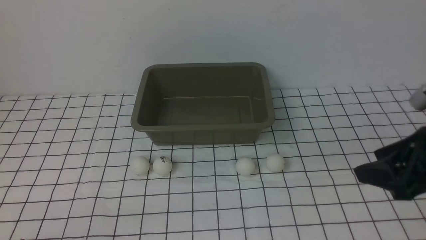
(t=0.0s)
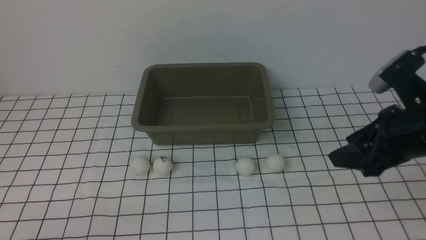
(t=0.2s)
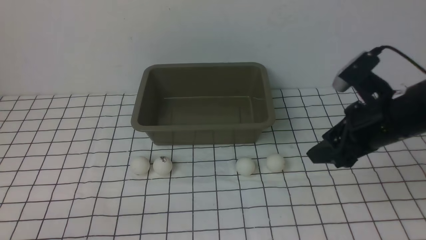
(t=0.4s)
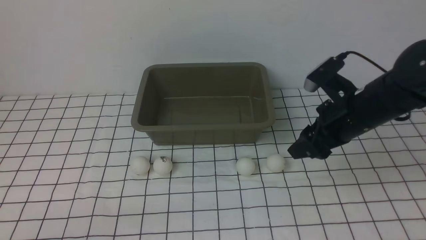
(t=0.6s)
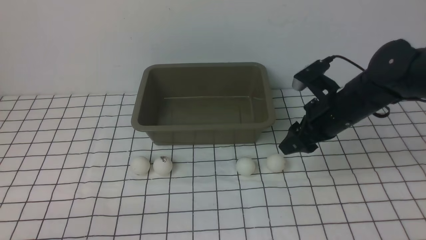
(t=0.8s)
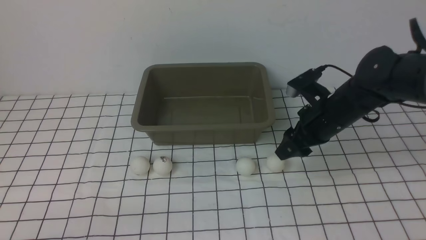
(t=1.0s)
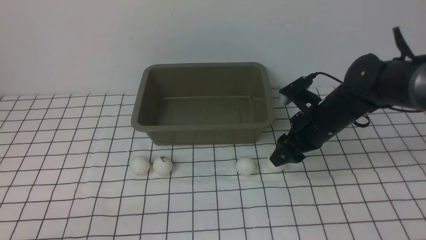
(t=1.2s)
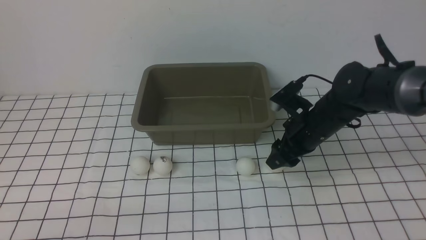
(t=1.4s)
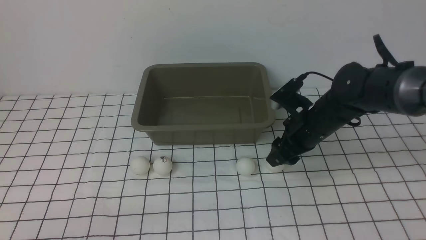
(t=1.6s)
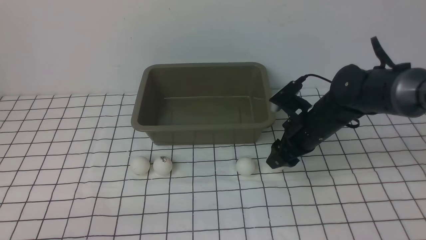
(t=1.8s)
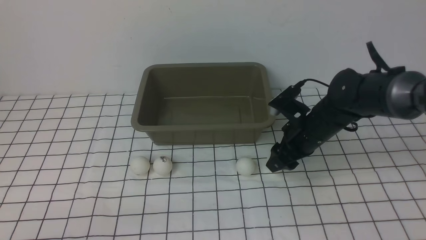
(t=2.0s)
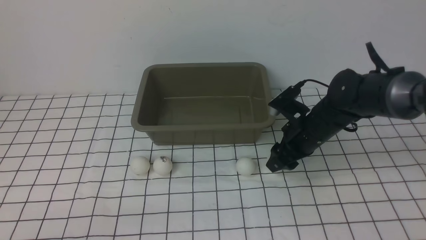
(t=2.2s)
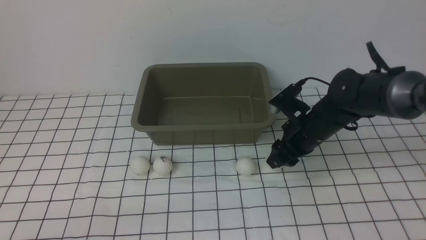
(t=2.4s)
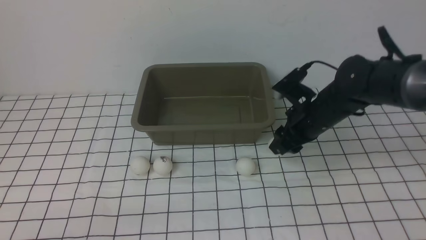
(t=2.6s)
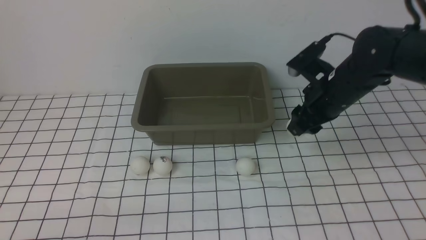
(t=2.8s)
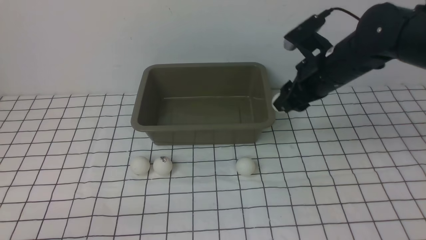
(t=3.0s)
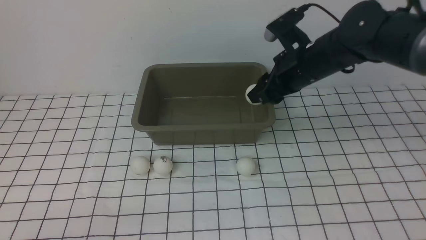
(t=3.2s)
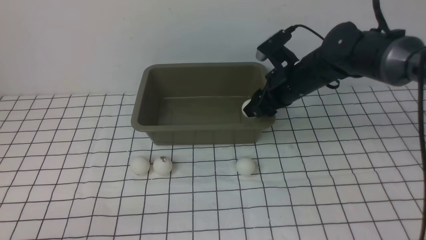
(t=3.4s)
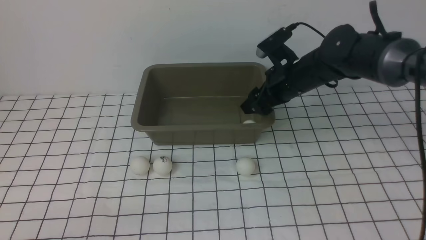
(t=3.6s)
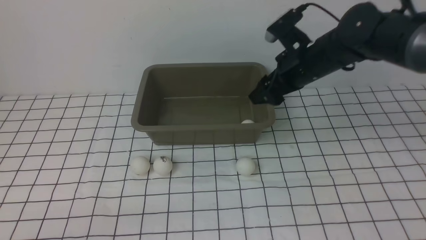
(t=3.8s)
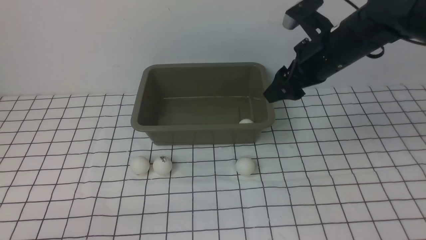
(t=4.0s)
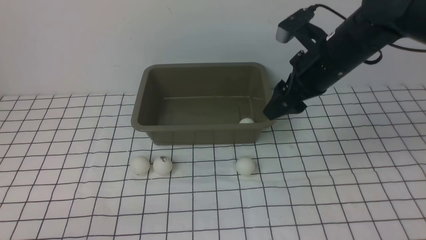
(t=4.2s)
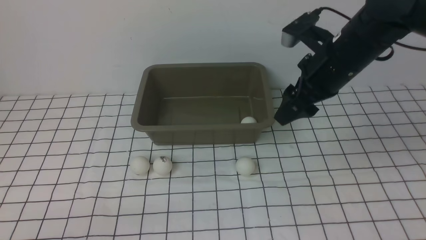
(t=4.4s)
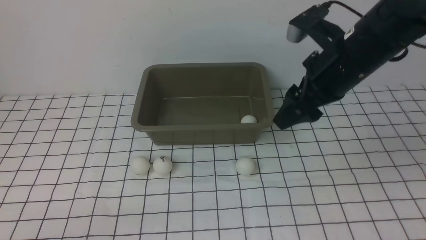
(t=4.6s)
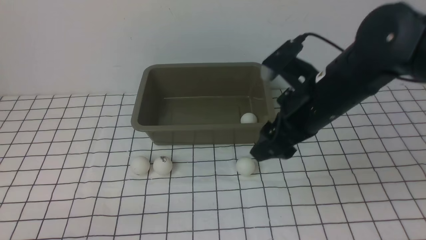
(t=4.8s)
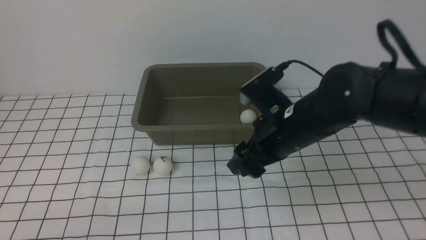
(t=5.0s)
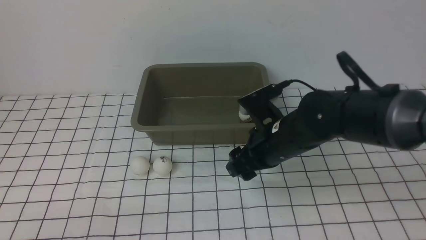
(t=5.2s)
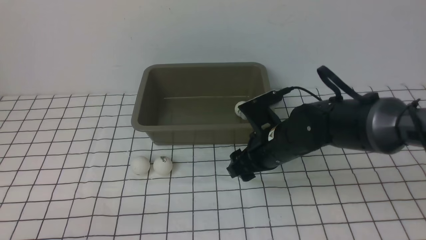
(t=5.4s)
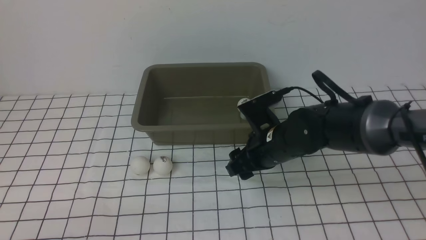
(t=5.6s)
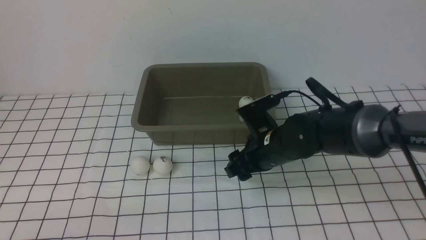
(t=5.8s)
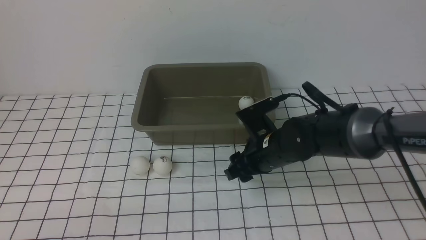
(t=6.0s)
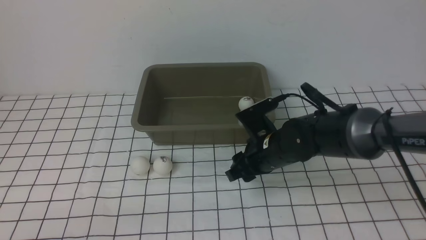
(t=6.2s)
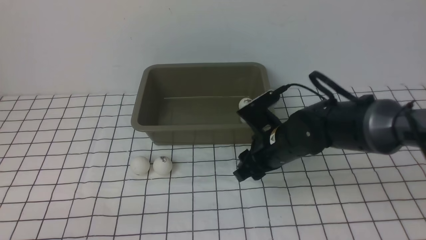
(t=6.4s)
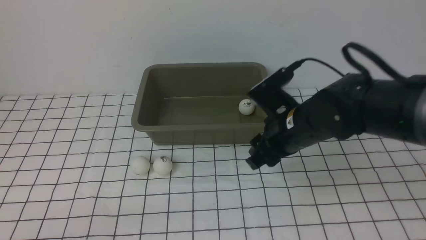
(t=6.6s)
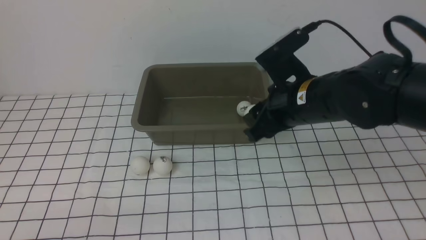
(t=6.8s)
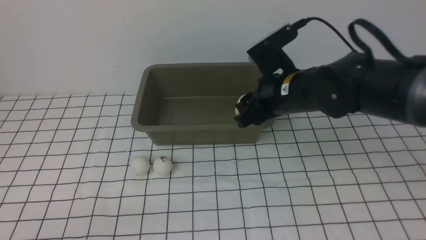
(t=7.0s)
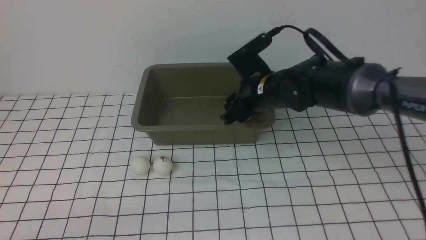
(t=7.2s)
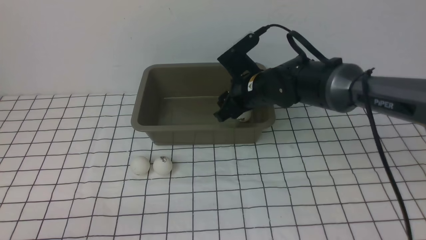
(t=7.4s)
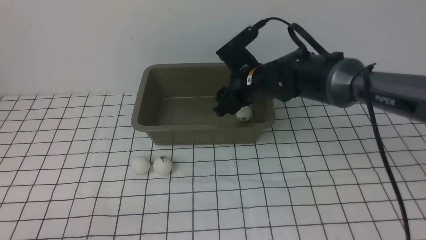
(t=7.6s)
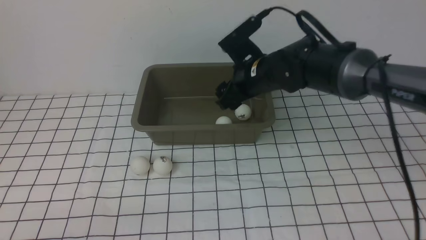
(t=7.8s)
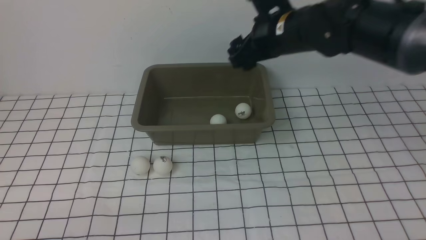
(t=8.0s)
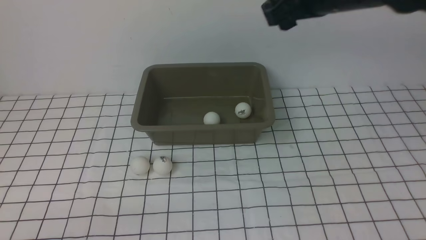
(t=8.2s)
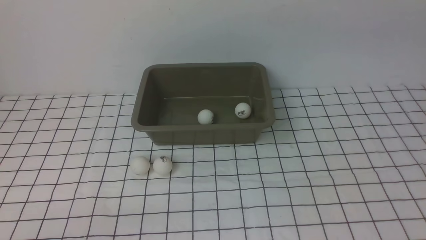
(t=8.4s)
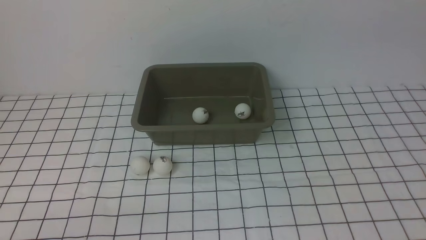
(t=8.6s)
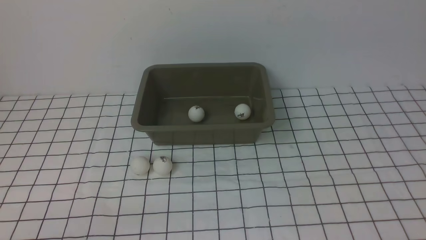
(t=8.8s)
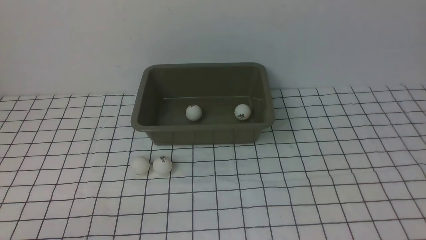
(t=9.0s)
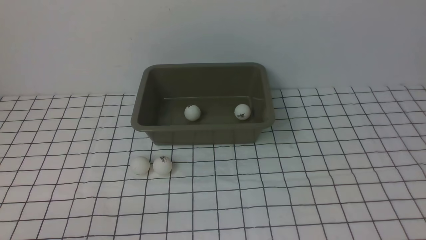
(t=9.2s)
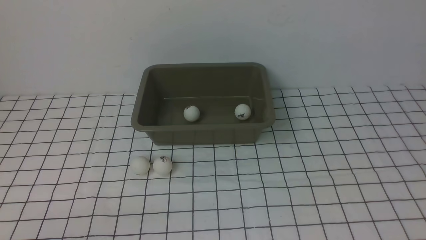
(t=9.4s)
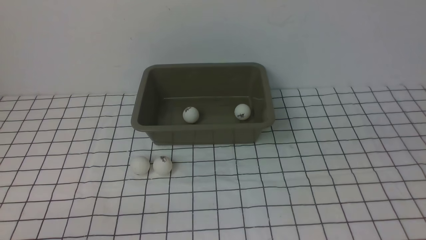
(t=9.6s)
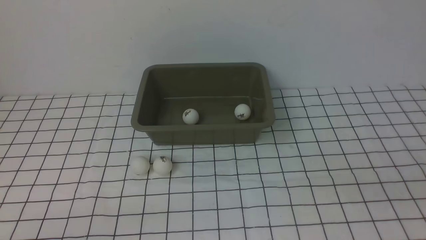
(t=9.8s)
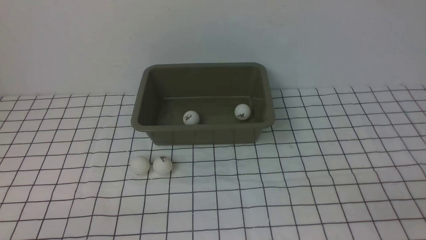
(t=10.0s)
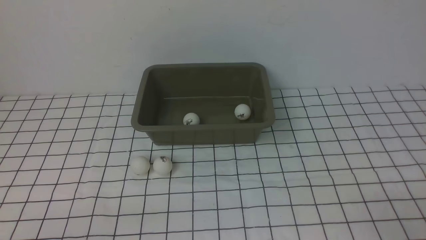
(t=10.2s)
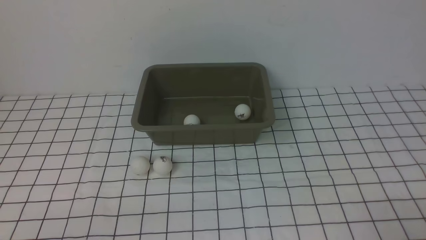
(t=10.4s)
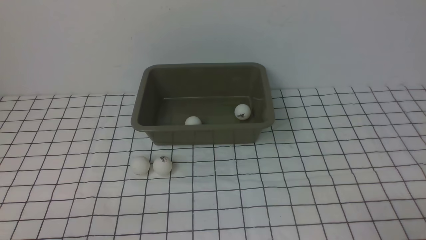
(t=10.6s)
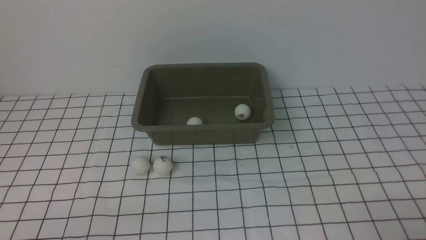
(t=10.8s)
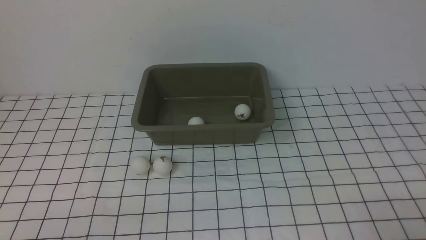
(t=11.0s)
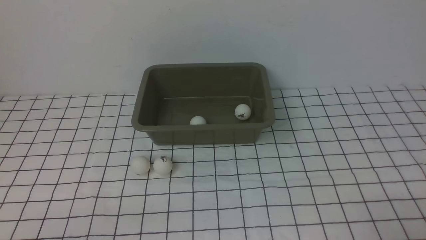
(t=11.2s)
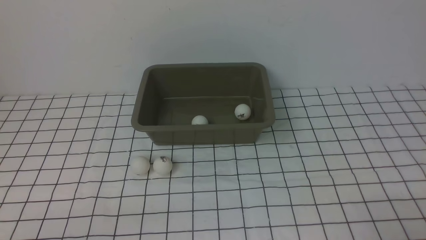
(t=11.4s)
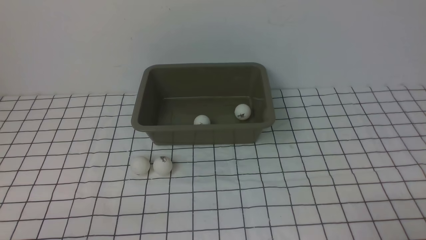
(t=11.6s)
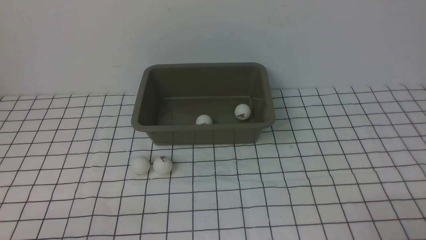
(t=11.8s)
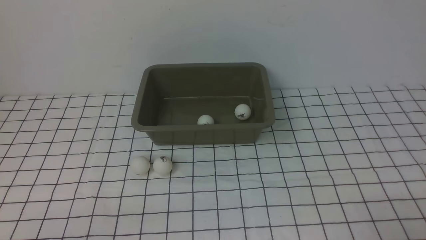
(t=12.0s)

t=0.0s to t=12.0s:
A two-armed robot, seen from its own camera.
Step, t=0.0s to t=2.6s: use the right arm to clamp the table tennis ball closest to it.
Step, t=3.0s to t=3.6s: use the right arm to put the table tennis ball into the box.
Step, t=3.8s to t=6.4s: use the right arm to clamp the table tennis ball closest to it.
Step, t=6.6s to t=7.8s: use the right arm to put the table tennis ball into the box.
t=0.0s to t=1.6s: The right gripper goes about 25 cm forward, downward and to the left.
t=1.6s to t=3.0s: The right gripper goes roughly 10 cm upward, and closes.
t=3.0s to t=4.4s: The right gripper shifts by approximately 5 cm, and opens up.
t=4.4s to t=6.0s: The right gripper shifts about 20 cm downward and to the left, and closes.
t=6.0s to t=7.6s: The right gripper is displaced forward and upward by roughly 10 cm.
t=7.6s to t=9.0s: The right gripper moves upward, backward and to the right, about 50 cm, and opens its fingers.

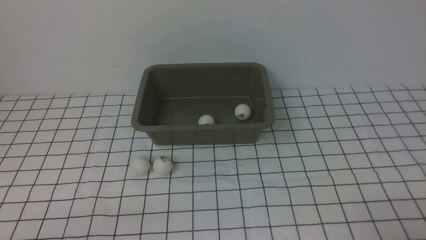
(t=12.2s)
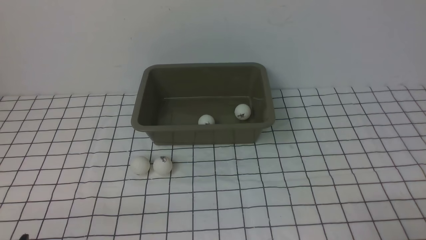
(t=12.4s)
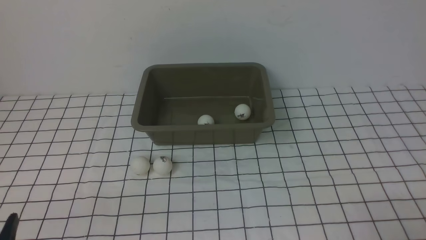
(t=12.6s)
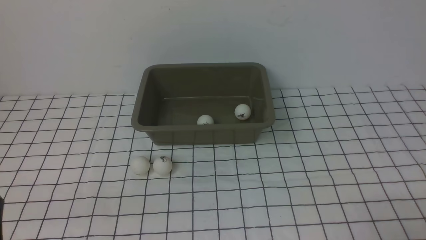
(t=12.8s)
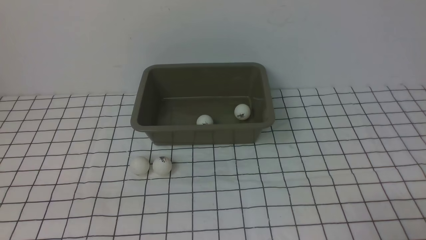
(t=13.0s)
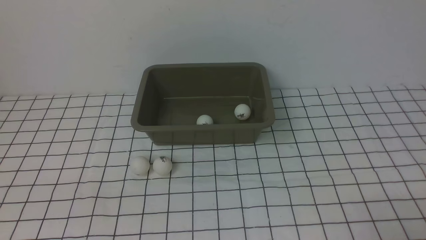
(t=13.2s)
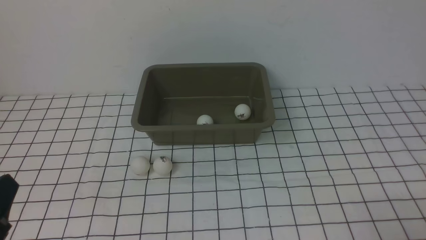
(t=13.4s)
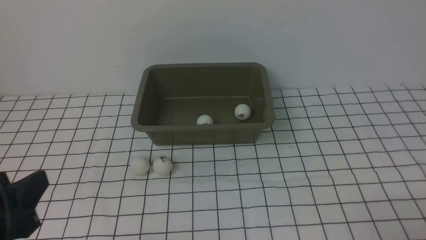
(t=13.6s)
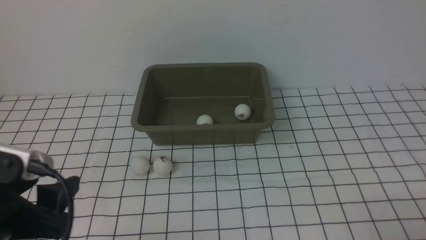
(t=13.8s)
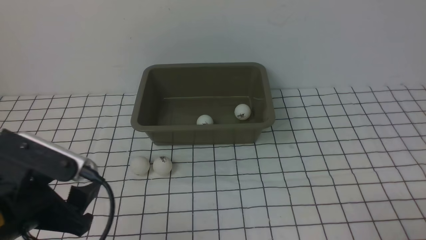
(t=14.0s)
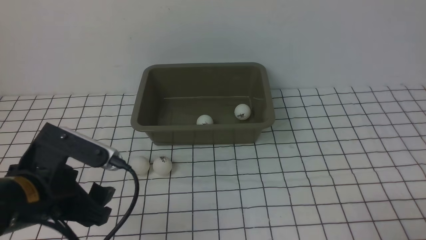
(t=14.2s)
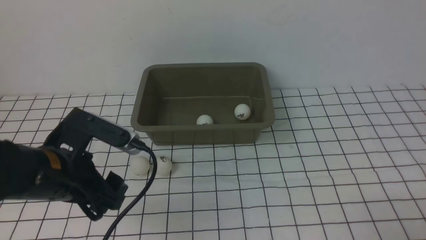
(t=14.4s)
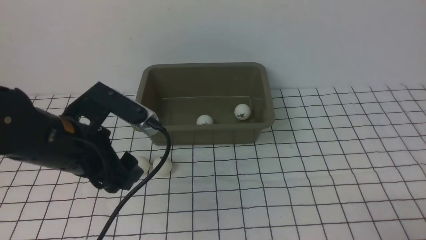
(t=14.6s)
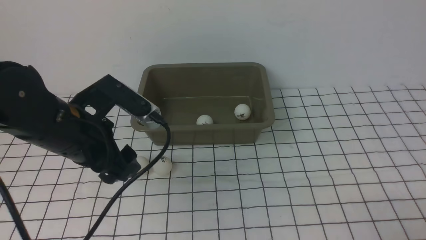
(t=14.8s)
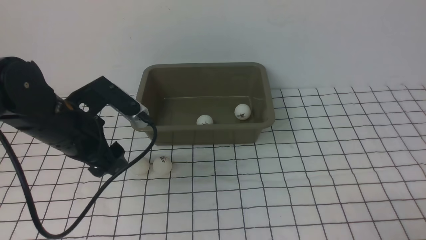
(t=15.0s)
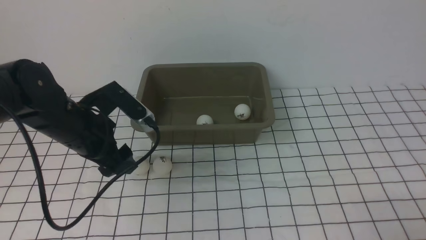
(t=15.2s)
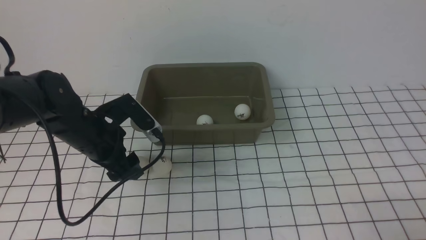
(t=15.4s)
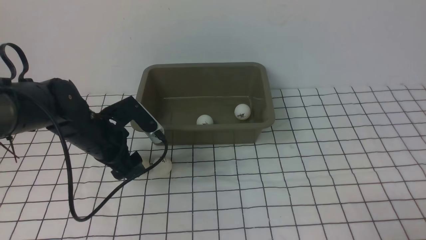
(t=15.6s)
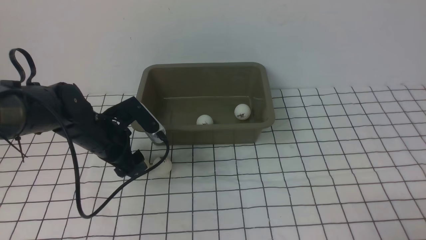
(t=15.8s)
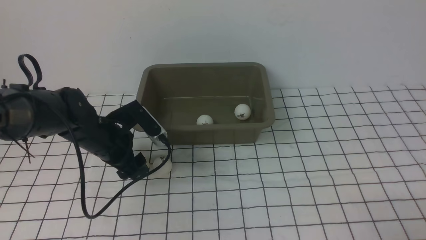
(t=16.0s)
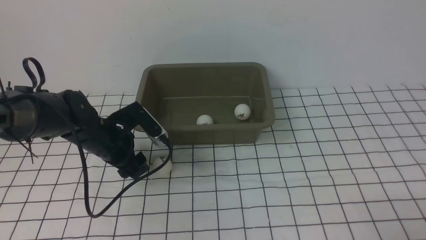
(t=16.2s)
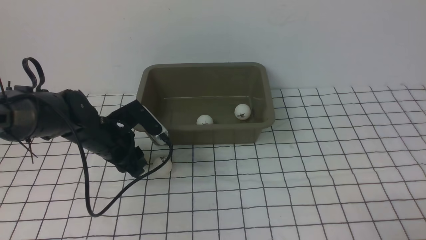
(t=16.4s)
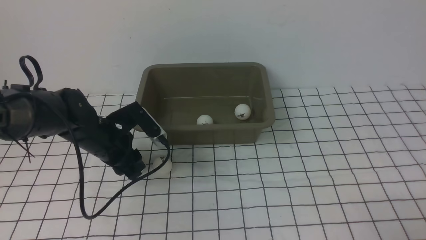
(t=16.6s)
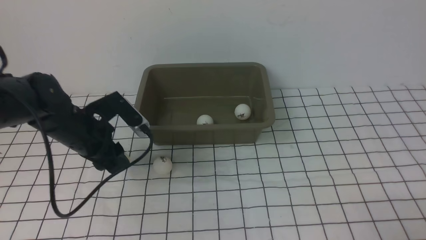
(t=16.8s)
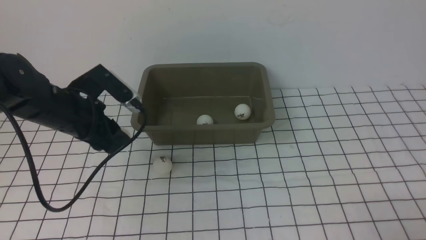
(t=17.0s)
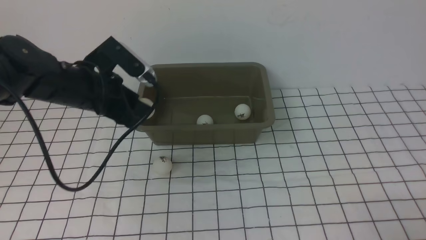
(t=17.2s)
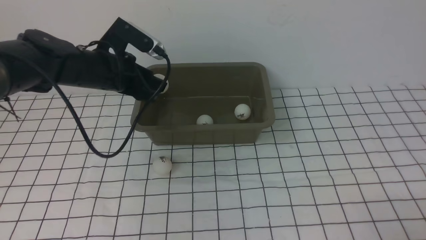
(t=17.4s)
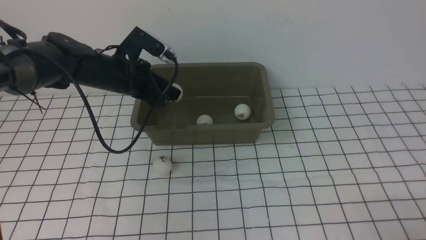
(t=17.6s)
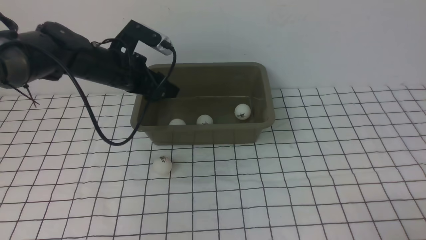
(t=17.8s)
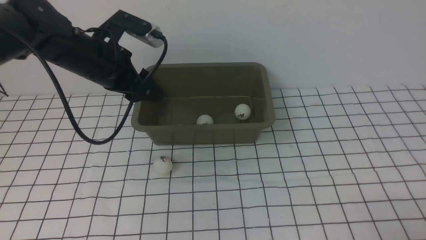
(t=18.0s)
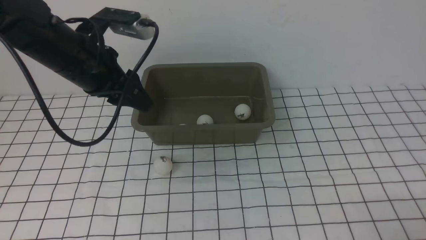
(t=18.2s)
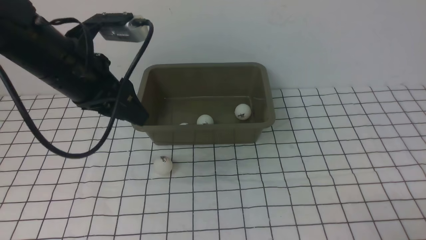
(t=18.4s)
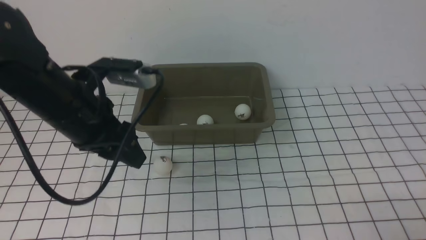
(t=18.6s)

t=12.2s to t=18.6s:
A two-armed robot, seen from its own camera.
Step, t=12.2s to t=16.6s: use the left arm to clamp the table tennis ball closest to it.
Step, t=17.0s to t=17.8s: use the left arm to put the table tennis ball into the box.
t=12.2s to t=13.8s: The left gripper goes approximately 10 cm upward and forward.
t=13.8s to t=15.4s: The left gripper shifts approximately 20 cm forward.
t=15.4s to t=17.0s: The left gripper closes its fingers.
t=17.0s to t=18.6s: The left gripper moves upward, about 5 cm.
